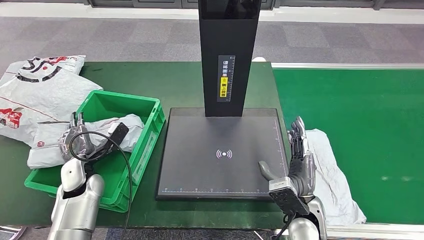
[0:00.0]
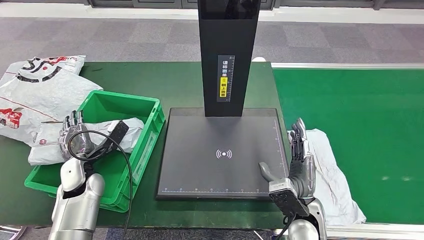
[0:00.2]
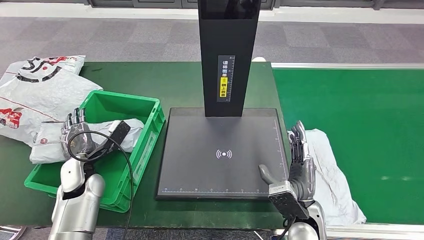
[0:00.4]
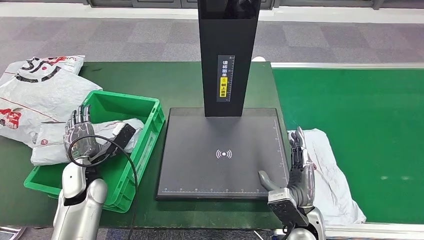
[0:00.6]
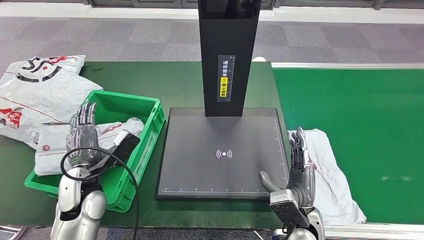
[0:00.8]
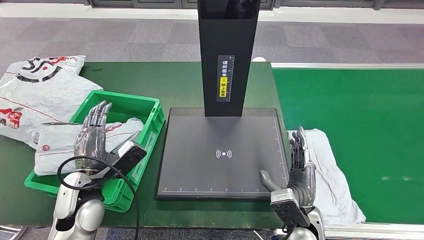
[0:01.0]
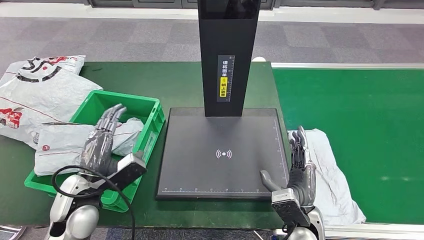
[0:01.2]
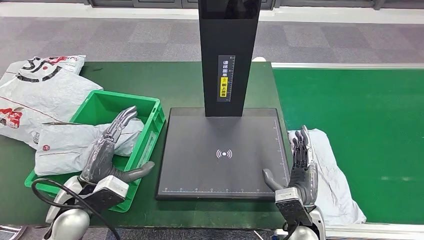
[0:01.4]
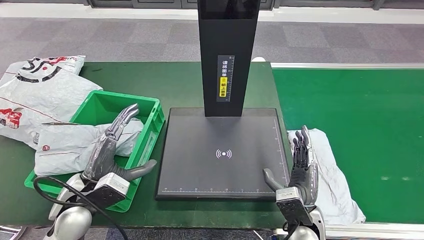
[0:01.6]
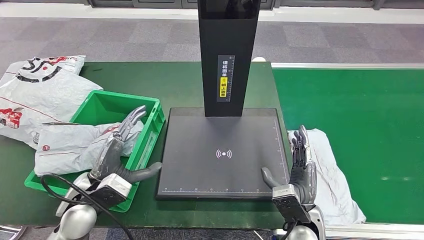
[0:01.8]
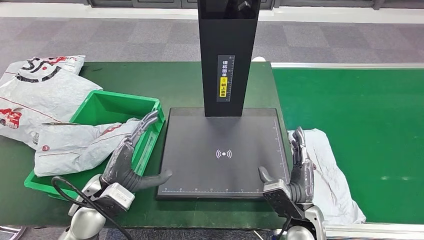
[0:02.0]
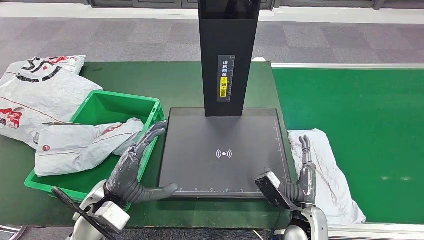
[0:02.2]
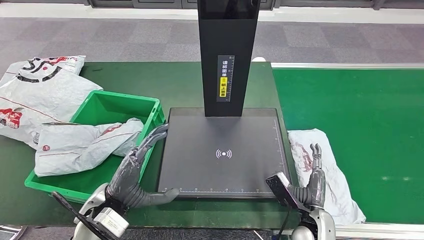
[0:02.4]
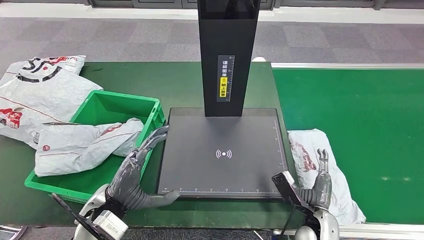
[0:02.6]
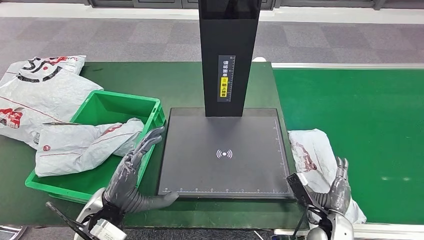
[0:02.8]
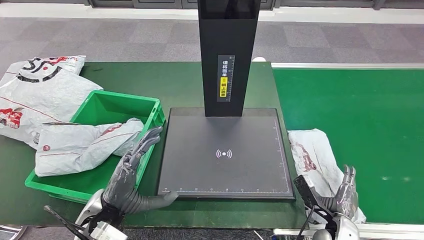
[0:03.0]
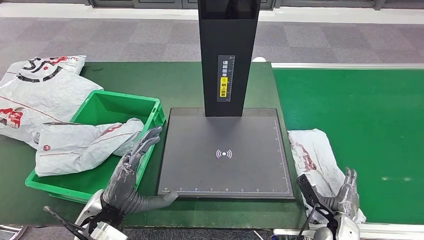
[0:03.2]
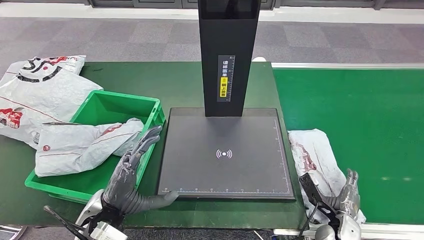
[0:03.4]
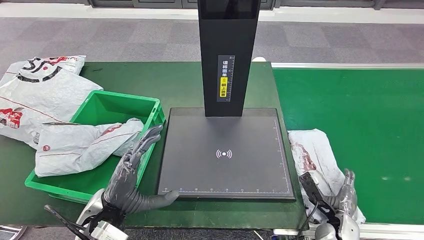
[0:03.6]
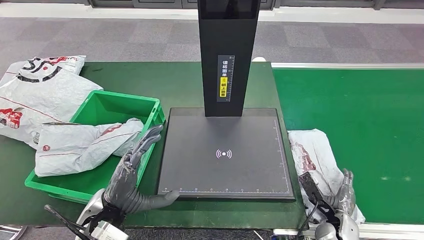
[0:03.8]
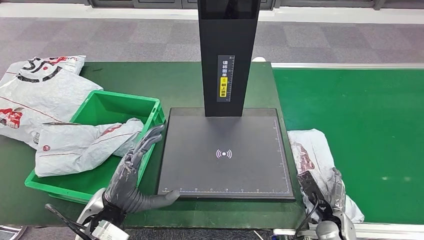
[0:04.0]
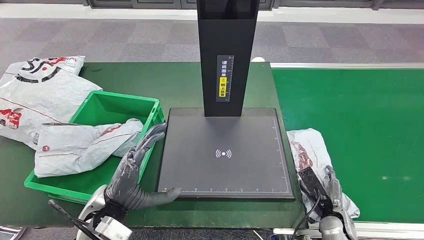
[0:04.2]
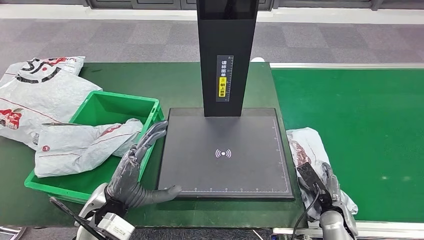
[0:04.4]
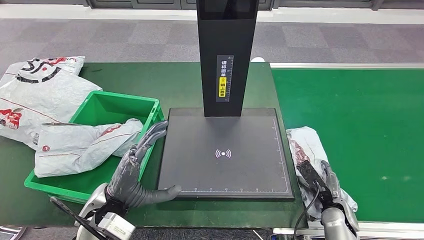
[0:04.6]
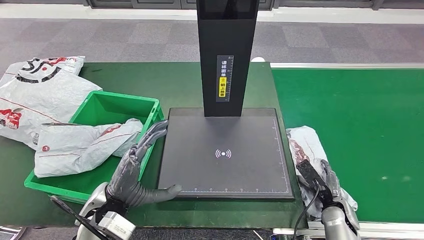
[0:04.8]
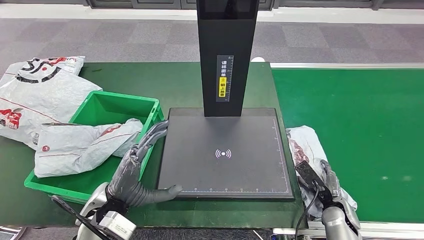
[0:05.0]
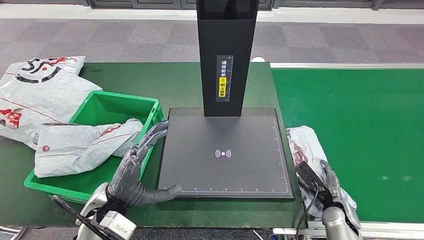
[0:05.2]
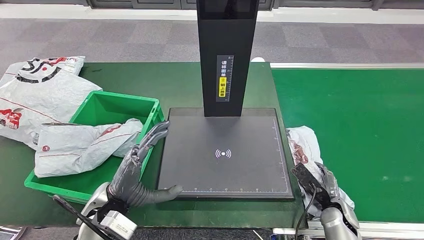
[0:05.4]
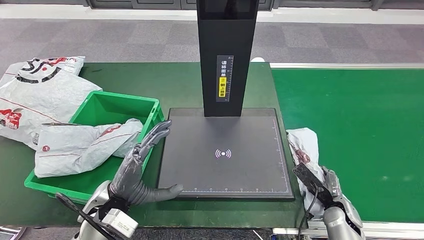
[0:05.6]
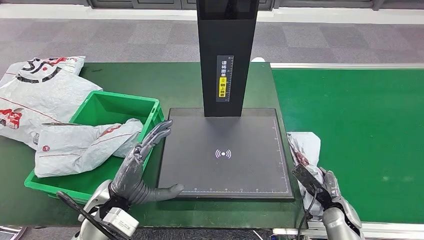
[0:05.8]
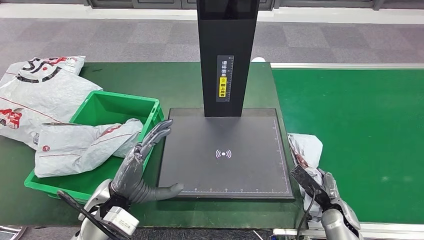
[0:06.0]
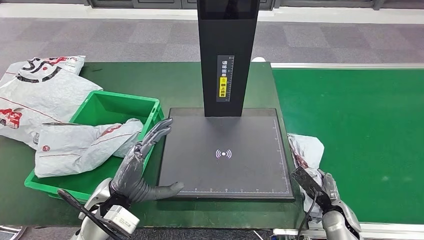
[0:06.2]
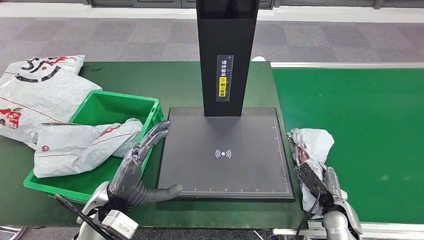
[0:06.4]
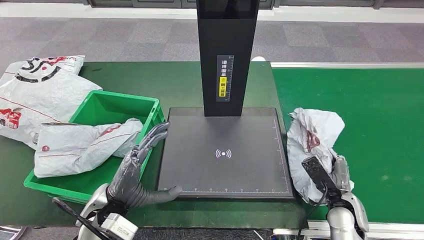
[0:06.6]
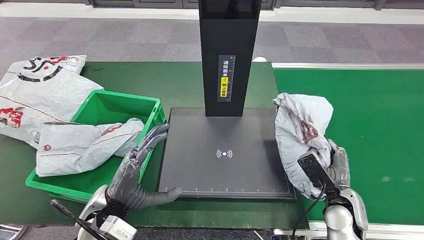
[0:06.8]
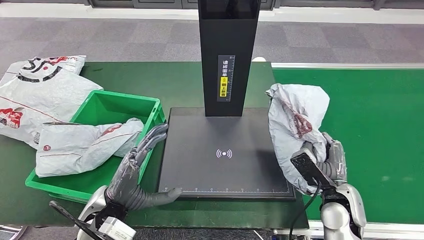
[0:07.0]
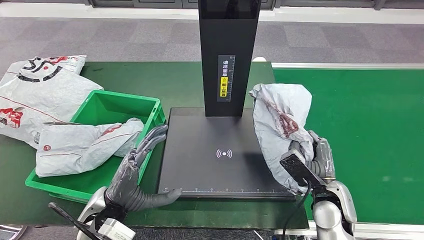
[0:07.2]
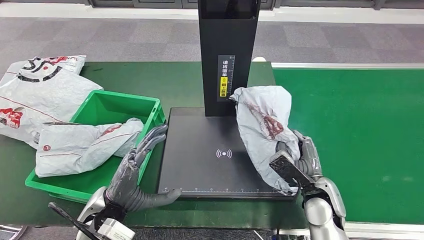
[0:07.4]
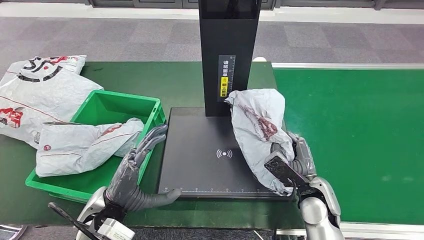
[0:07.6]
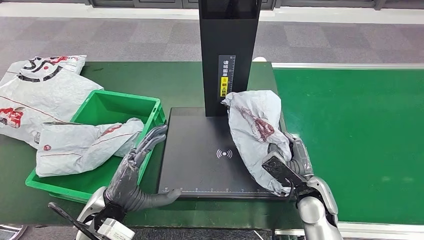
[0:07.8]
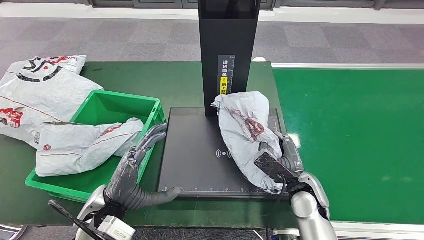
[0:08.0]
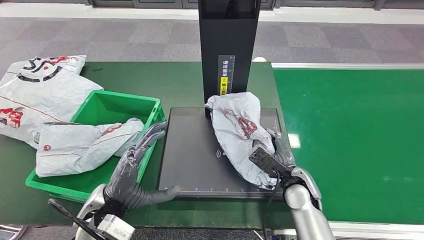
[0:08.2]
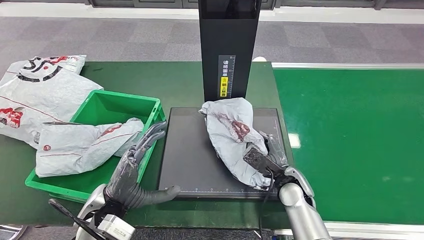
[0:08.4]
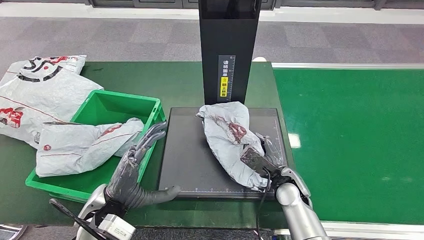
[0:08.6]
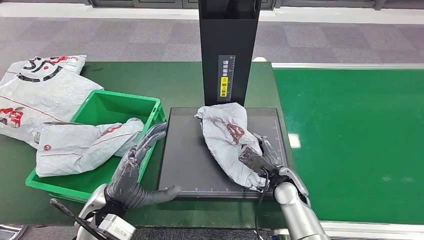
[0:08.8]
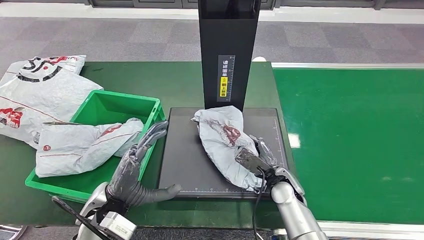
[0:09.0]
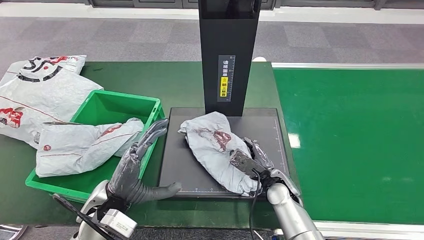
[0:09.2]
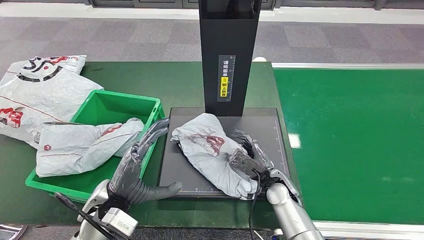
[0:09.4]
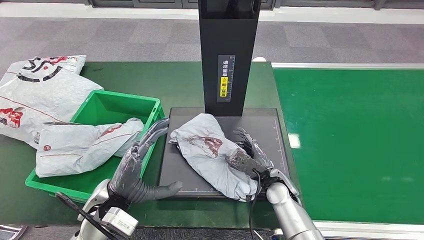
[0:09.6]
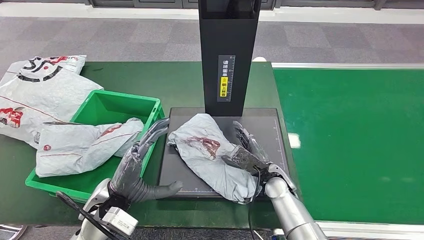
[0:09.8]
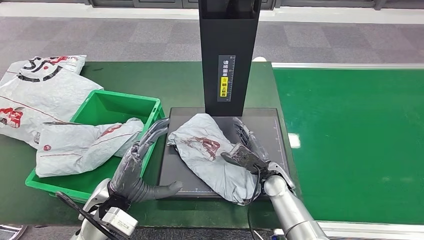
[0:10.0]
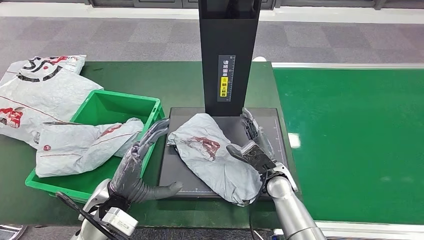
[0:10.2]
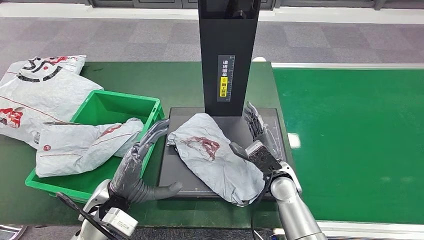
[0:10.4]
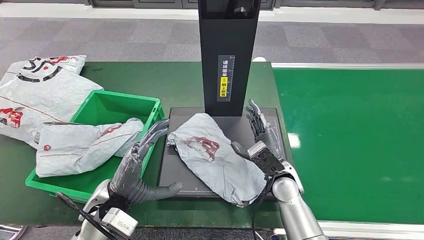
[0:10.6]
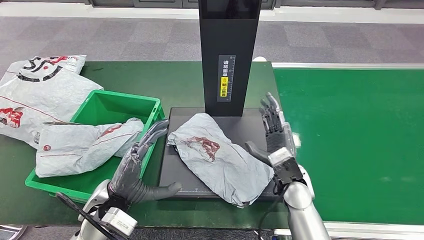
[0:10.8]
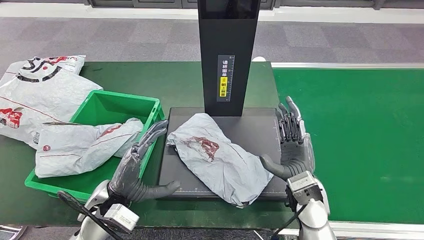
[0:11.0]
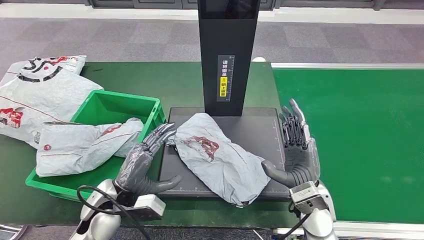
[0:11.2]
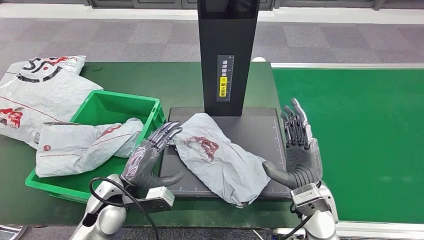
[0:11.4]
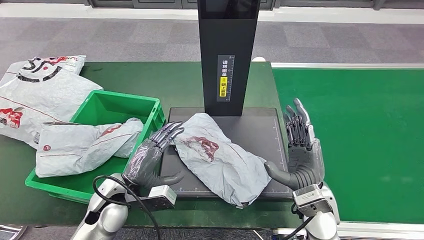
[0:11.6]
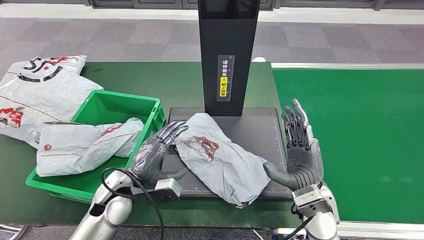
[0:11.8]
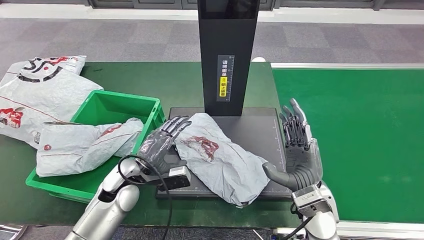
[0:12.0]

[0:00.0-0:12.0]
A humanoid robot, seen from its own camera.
Step, 0:01.4 to 0:06.6: Pick up the parcel from the conveyor belt.
Step, 0:06.8 to 0:11.4: Place the parcel onto the inbound machine.
0:00.0 to 0:01.6: The left hand goes about 15 cm upward, backward and to the right.
0:01.6 to 0:03.0: The right hand goes approximately 15 cm to the right and downward, while the left hand moves to the right, roughly 5 cm.
0:04.4 to 0:06.0: There are only small adjustments of the hands.
0:06.0 to 0:07.6: The right hand shifts some 15 cm upward and to the left.
0:07.6 to 0:09.0: The right hand is displaced to the left by some 5 cm.
0:10.4 to 0:12.0: The right hand is displaced backward and upward by about 10 cm. The left hand moves forward, about 5 cm.

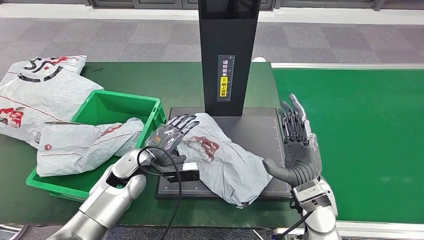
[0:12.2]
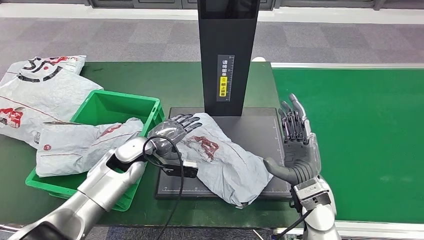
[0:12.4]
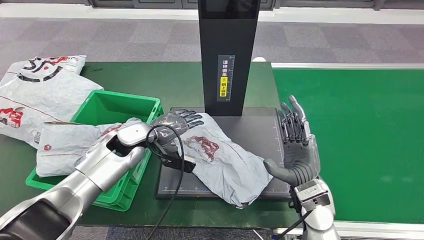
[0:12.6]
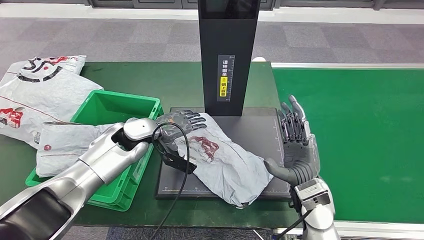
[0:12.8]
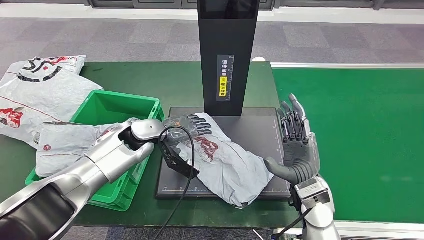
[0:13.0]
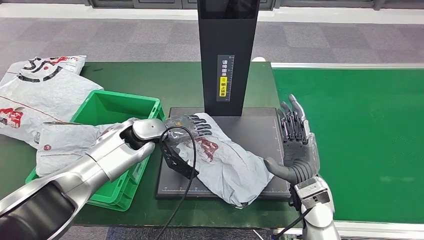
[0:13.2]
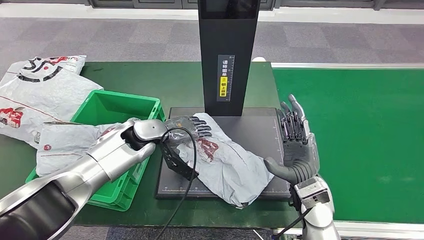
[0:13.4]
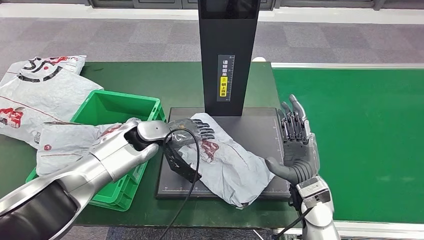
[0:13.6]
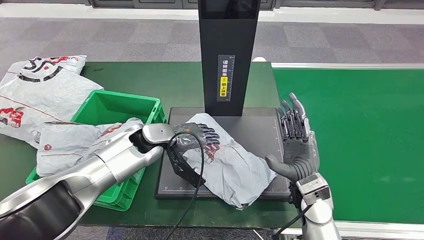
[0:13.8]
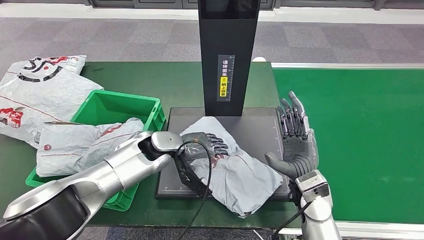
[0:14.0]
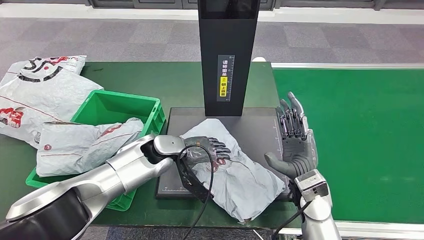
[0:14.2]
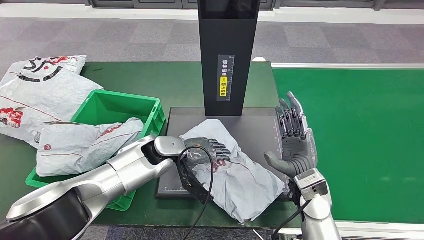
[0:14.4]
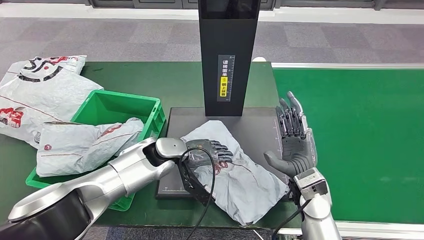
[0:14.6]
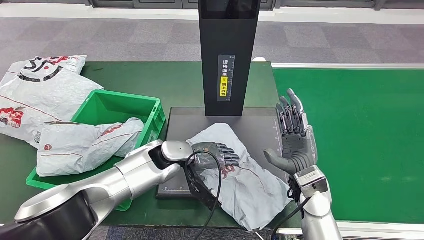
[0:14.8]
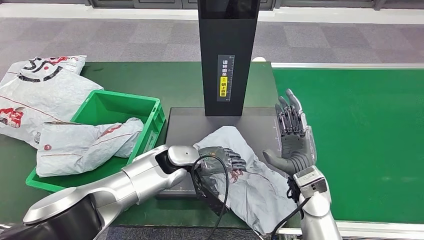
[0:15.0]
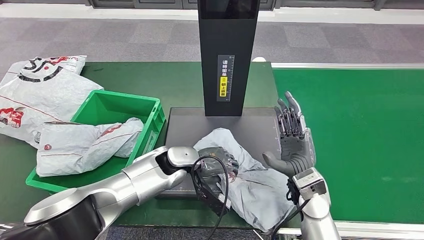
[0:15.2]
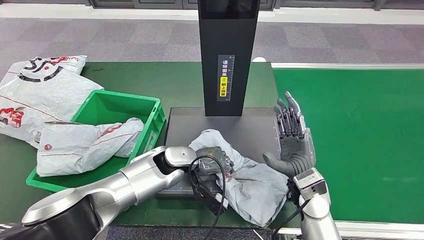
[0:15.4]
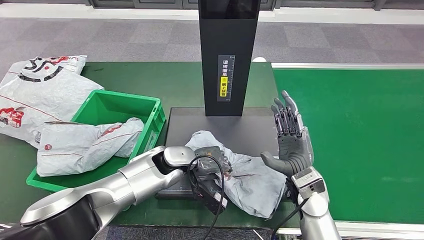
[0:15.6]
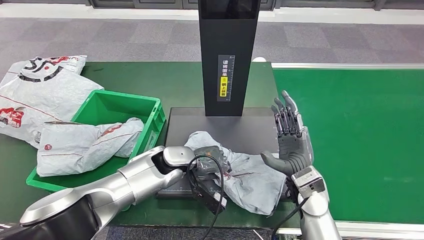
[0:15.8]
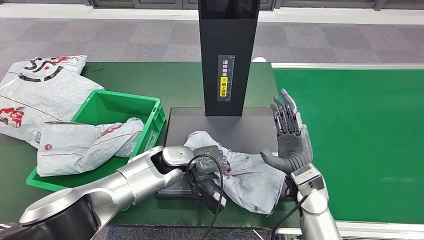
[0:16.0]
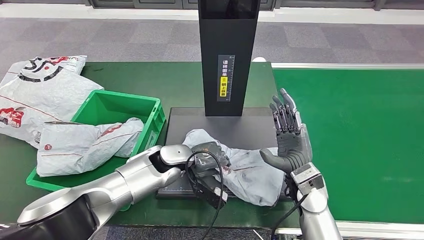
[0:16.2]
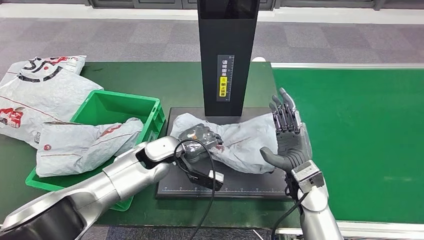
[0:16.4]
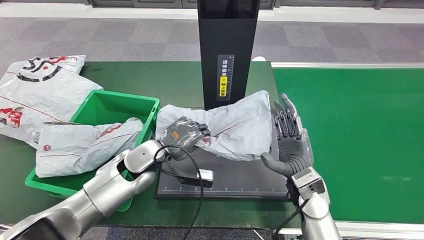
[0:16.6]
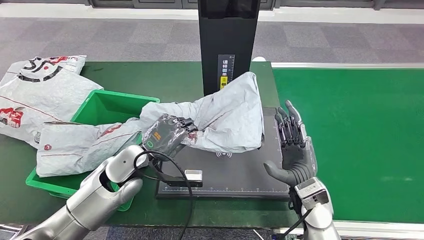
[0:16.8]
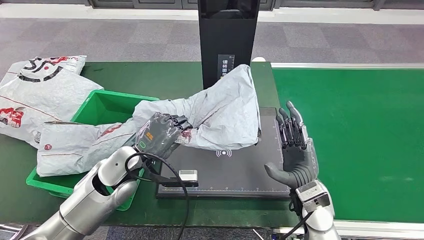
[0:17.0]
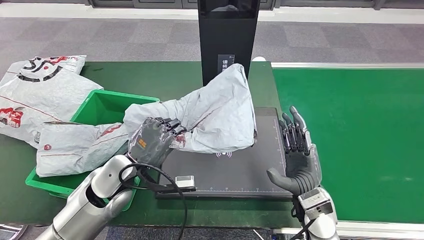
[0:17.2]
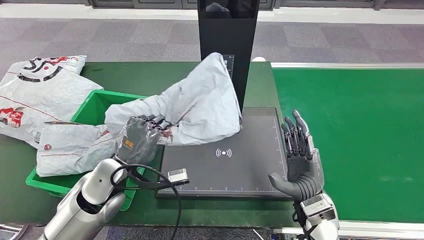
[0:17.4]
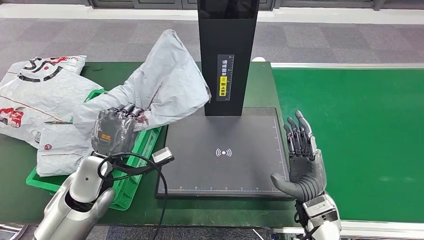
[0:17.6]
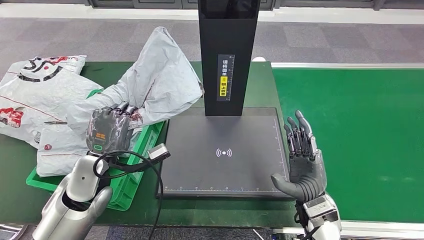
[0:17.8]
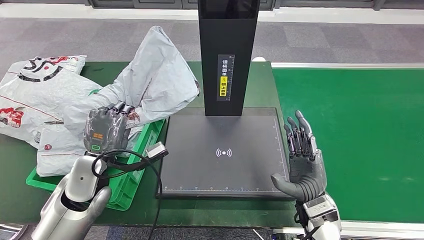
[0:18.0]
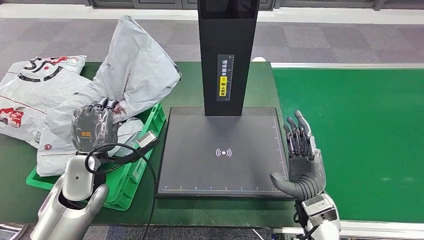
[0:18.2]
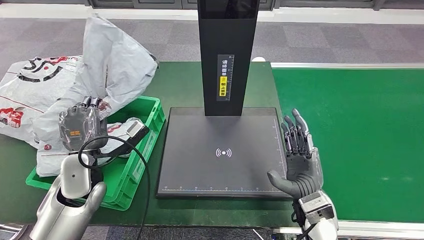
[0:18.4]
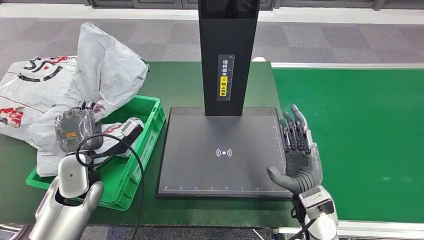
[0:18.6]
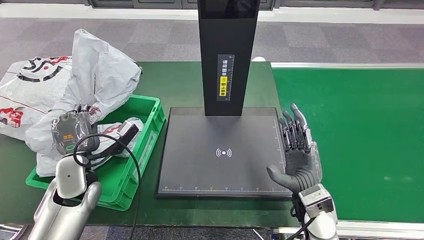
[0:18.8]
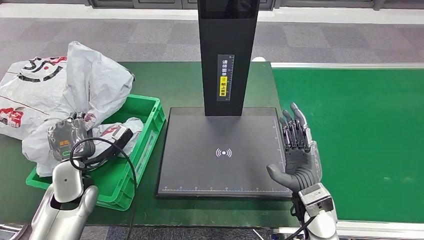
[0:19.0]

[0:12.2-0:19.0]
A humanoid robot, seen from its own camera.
Step, 0:12.2 to 0:16.6: Pick up the parcel from the inbound machine.
0:12.2 to 0:13.6: The left hand heads forward and upward, covering approximately 10 cm.
0:15.0 to 0:16.2: The hands make only small movements.
